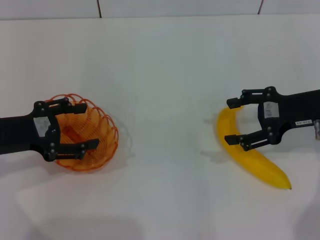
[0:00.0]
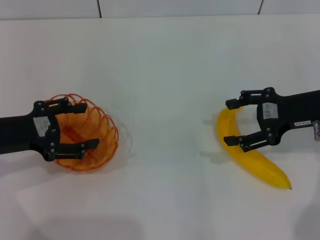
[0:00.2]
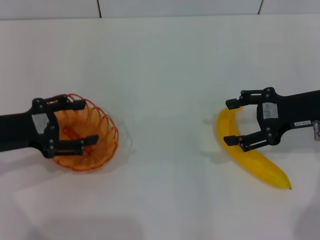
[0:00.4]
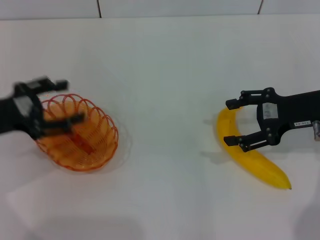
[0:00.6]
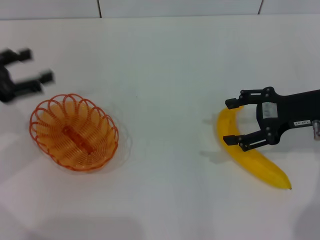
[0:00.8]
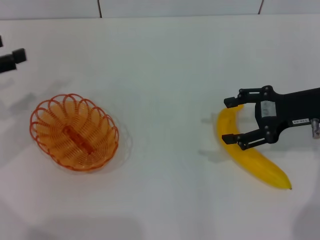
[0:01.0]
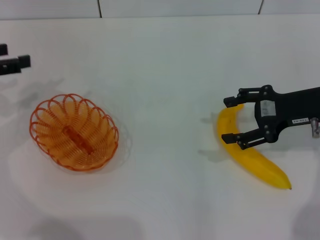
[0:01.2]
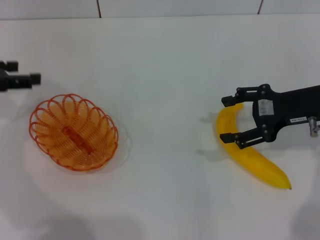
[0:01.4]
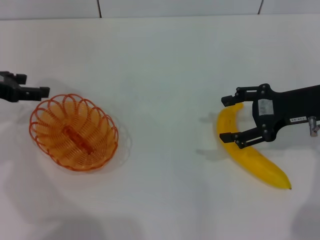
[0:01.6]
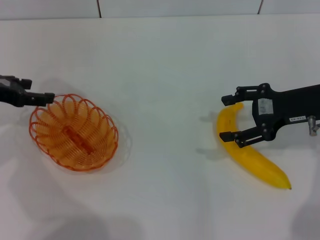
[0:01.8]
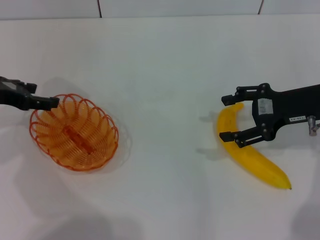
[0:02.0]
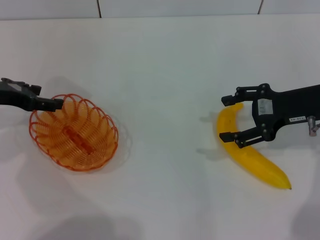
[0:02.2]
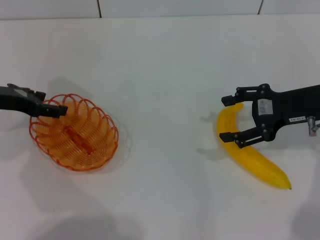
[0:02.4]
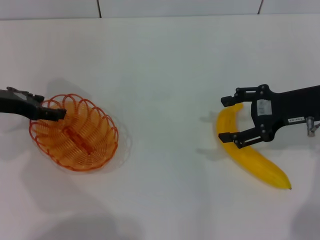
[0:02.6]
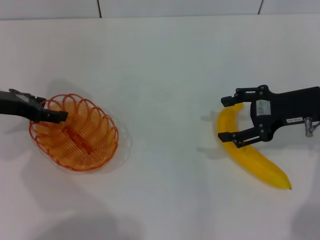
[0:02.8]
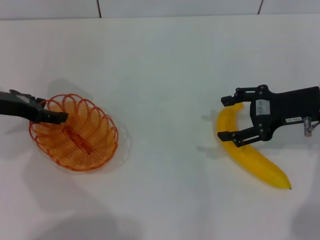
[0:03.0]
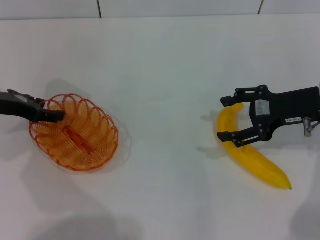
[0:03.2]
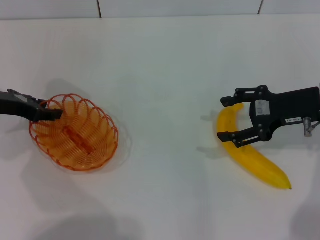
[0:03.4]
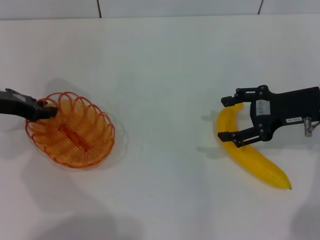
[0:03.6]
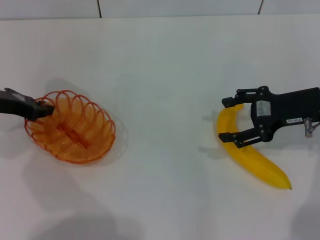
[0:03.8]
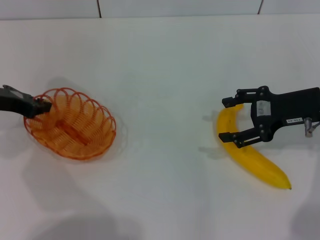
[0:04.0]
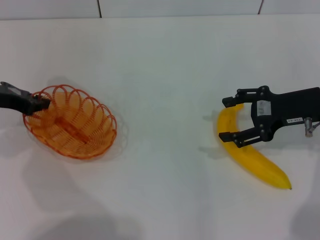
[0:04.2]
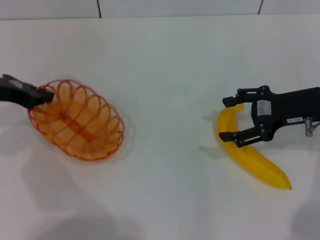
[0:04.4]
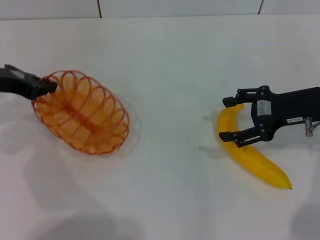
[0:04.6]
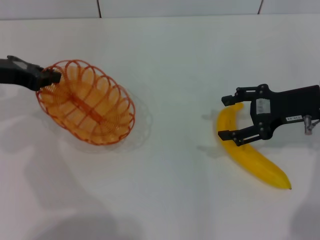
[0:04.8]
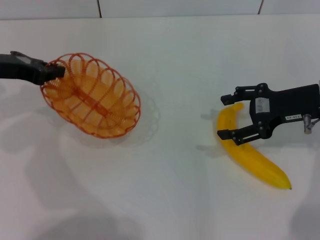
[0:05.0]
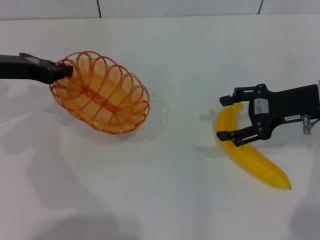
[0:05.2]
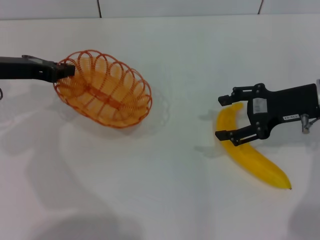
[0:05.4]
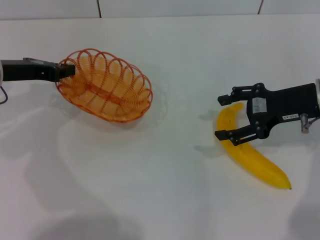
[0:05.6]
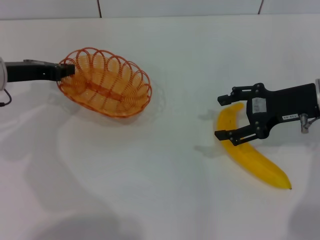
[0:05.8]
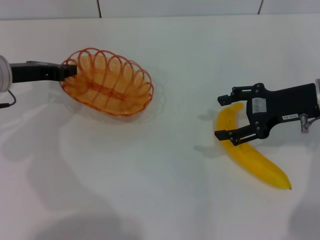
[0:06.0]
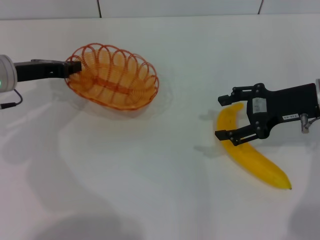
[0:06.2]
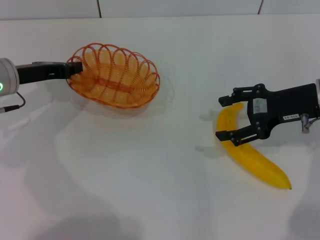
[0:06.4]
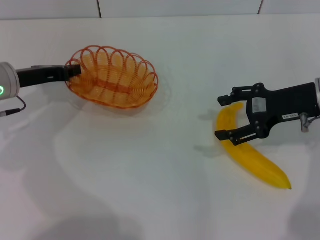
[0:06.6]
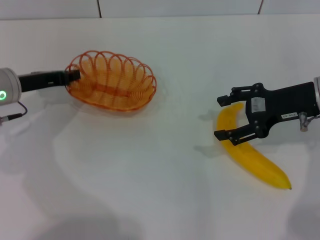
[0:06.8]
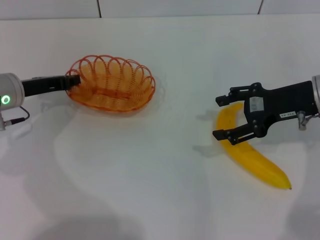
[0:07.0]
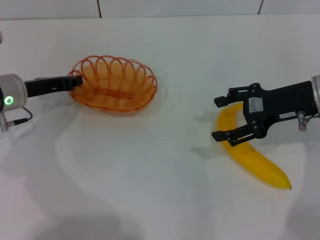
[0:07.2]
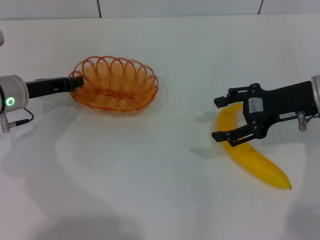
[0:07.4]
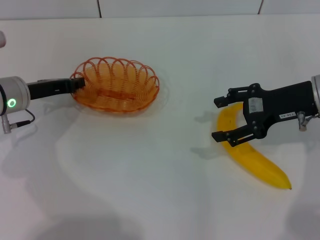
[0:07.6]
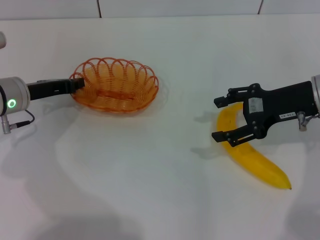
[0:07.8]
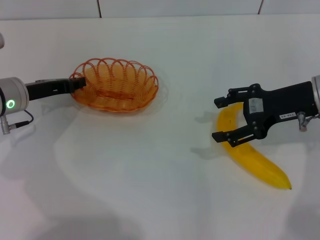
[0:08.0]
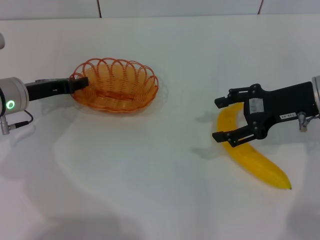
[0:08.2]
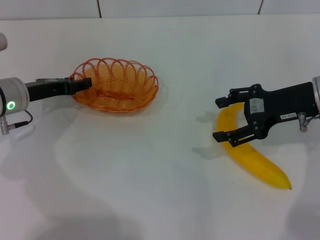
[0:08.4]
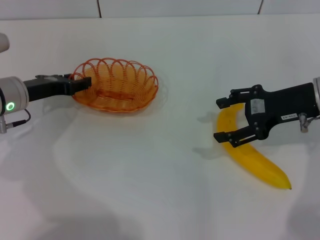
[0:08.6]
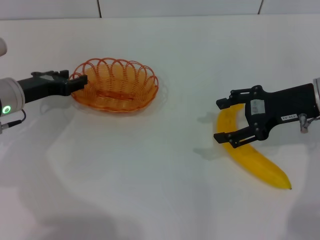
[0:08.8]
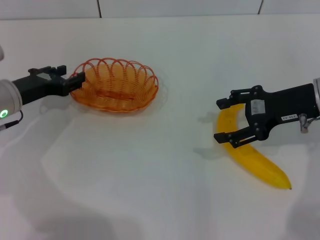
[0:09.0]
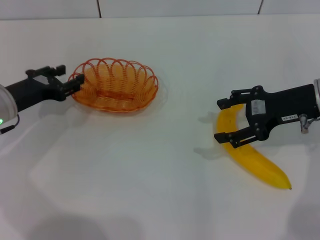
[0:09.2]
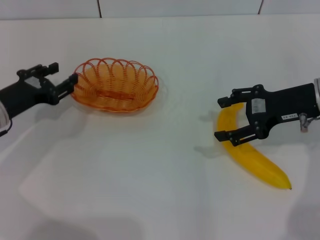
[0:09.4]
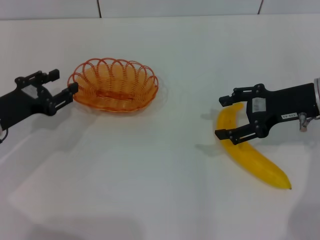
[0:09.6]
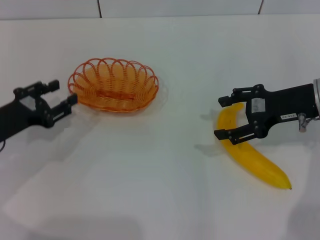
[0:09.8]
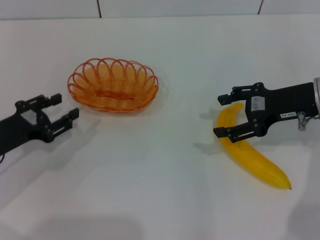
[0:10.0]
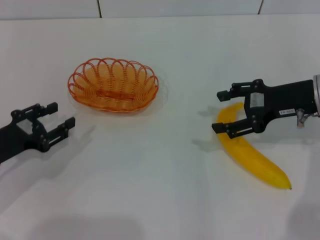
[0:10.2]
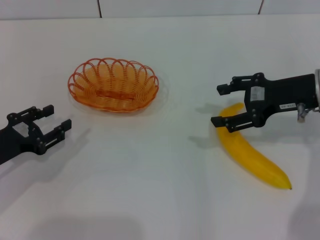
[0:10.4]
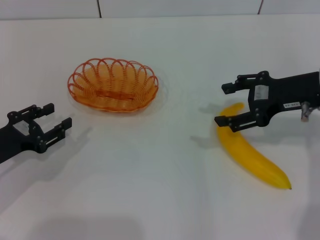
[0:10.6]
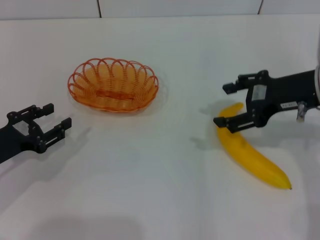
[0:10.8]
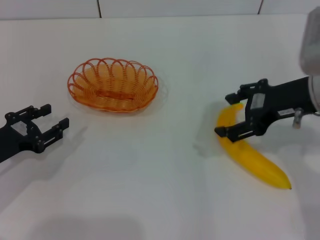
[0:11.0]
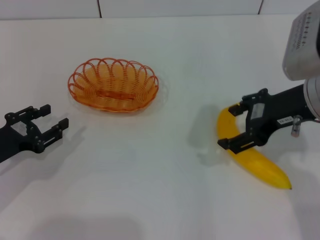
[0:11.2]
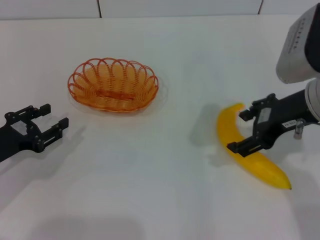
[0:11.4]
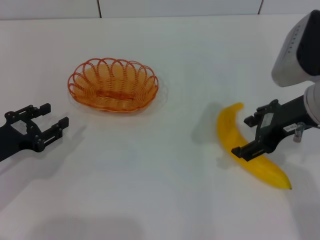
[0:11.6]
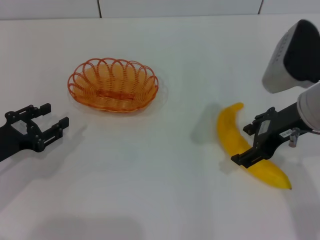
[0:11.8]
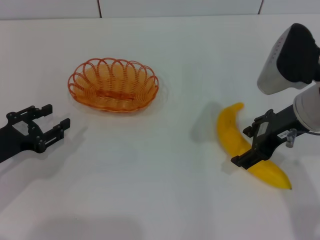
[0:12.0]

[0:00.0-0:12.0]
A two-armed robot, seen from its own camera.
Step, 0:00.0 to 0:04.8: Pick up the basket with the left gripper.
Step, 0:05.0 to 0:08.6: Place the basket in the center of view with the left gripper.
0:00.0 to 0:01.6: The left gripper is displaced forward by roughly 5 cm.
0:01.6 to 0:03.0: The grippers move only a little.
0:03.0 to 0:04.4: The left gripper closes up.
0:06.0 to 0:07.6: The grippers stay close to where they were, moving slightly.
0:07.6 to 0:09.0: The left gripper opens its fingers.
0:09.0 to 0:10.4: The left gripper heads backward, covering some 10 cm.
0:10.4 to 0:12.0: The right gripper moves to the left, about 5 cm.

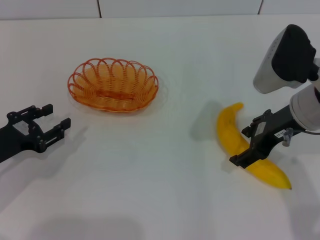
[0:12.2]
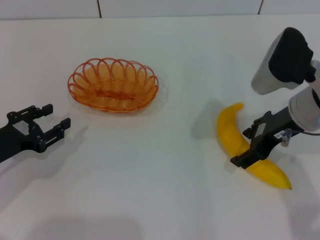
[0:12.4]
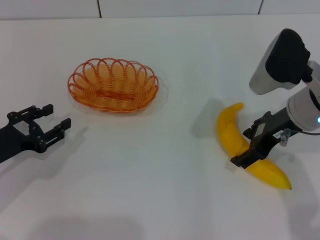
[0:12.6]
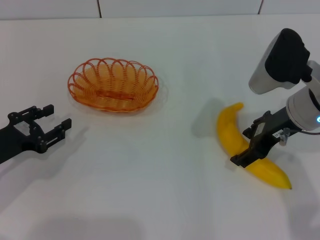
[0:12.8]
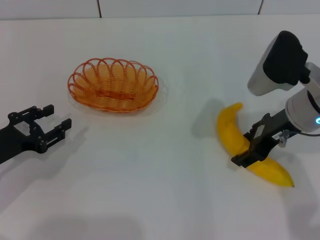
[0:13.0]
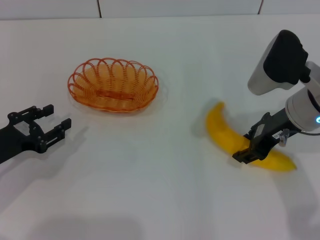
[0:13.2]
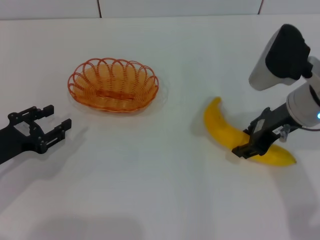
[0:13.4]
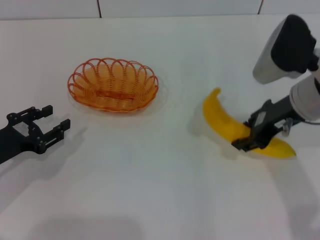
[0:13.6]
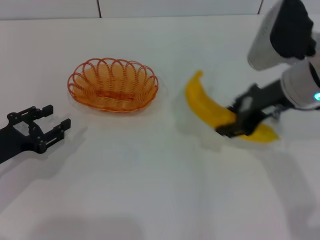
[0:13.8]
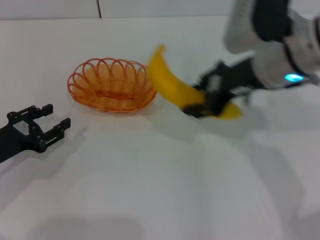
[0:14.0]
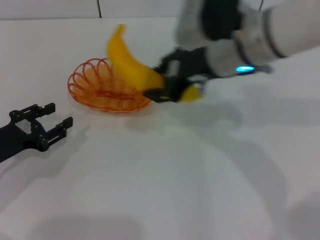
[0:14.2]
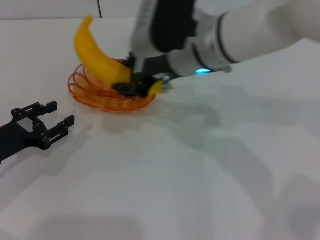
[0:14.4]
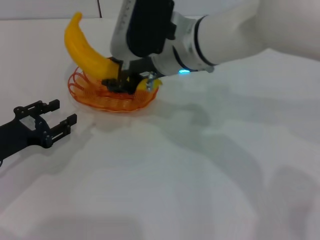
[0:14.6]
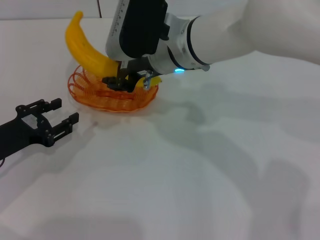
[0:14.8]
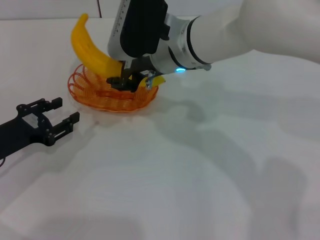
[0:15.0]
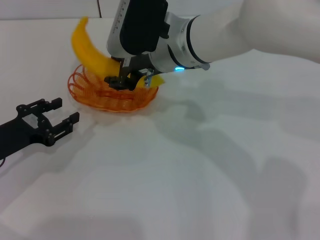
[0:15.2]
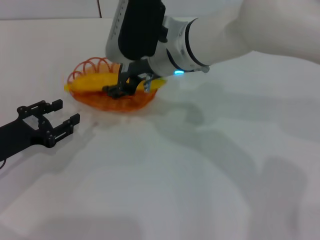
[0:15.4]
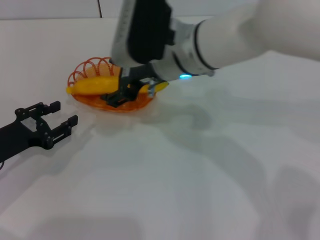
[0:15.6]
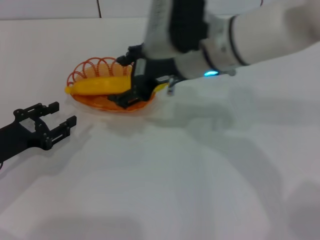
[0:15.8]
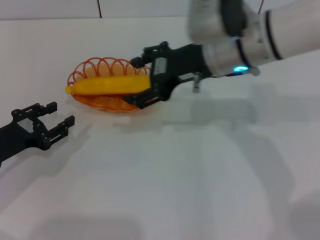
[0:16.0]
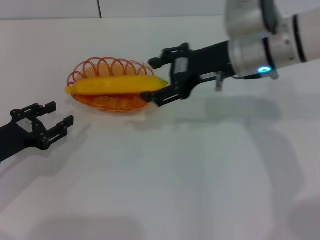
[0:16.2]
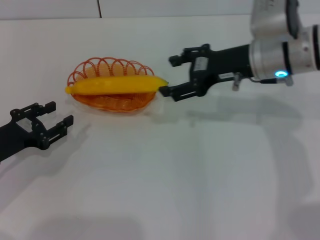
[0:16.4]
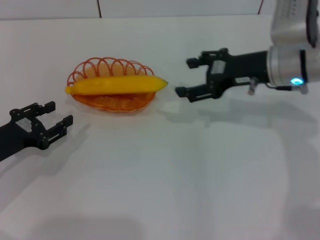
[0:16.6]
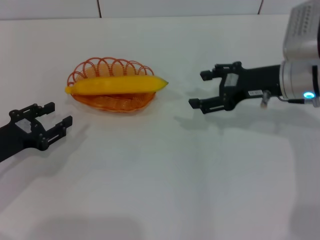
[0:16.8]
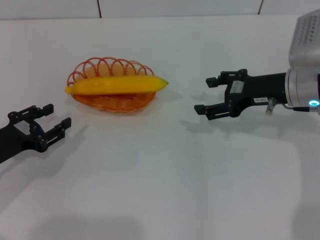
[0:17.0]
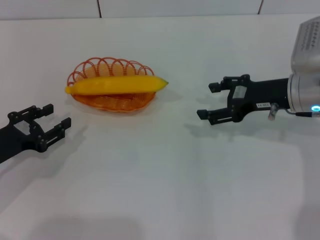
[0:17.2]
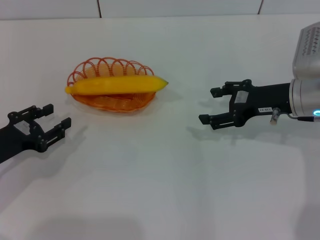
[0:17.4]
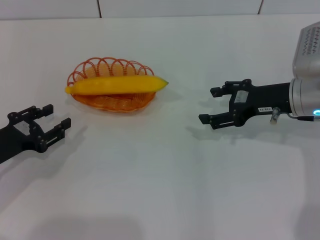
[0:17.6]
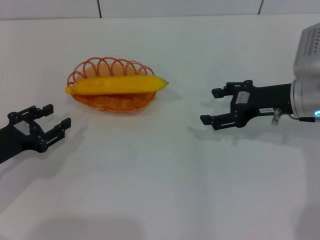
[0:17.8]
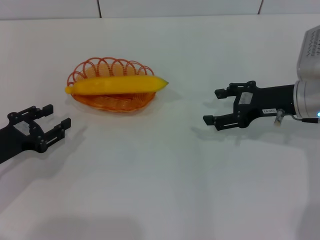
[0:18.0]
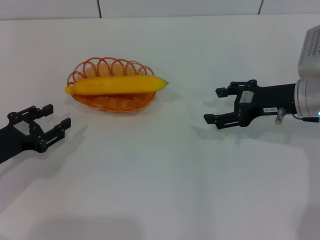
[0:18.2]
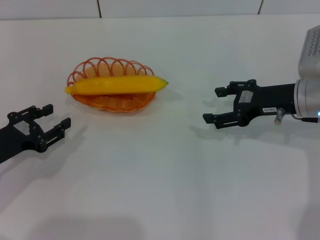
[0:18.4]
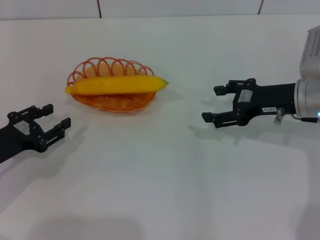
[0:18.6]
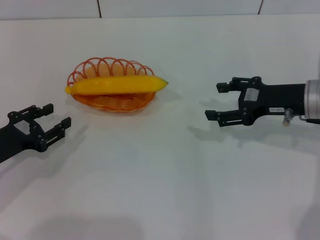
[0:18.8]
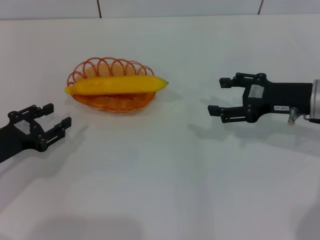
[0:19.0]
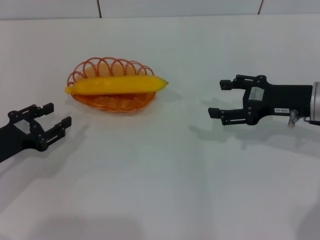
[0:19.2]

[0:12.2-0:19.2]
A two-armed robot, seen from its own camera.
Step, 0:14.2 to 0:15.8: Place the banana into the basket with the right gripper.
0:12.2 to 0:13.6: The right gripper closes.
0:13.6 to 0:15.0: The right gripper goes approximately 20 cm to the left and forward.
0:15.0 to 0:16.4: The right gripper travels to the right by approximately 15 cm, and opens.
0:16.4 to 0:17.8: The right gripper travels to the right by approximately 5 cm.
0:17.8 to 0:19.2: There are only small adjustments of the grippers.

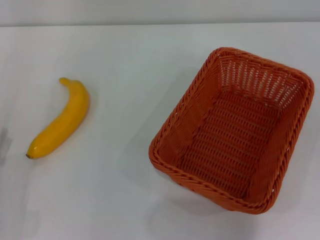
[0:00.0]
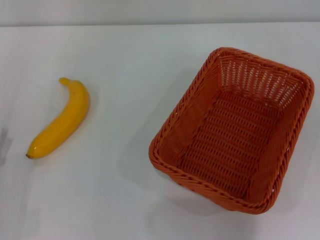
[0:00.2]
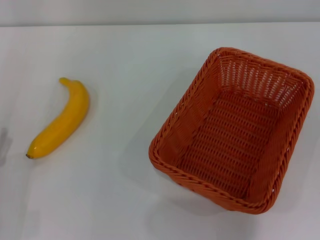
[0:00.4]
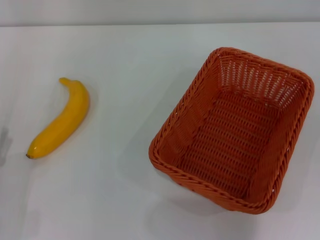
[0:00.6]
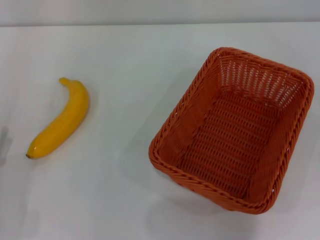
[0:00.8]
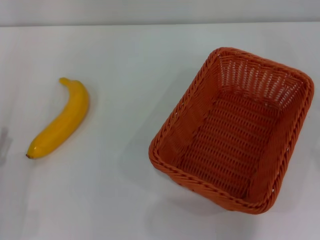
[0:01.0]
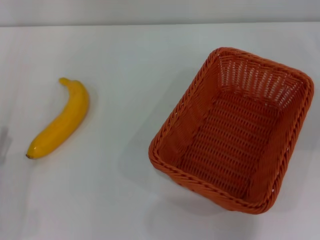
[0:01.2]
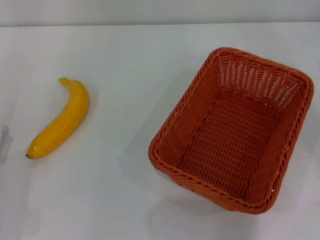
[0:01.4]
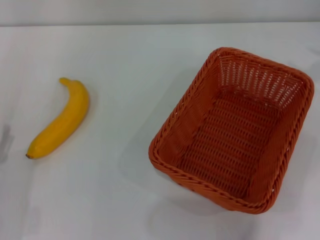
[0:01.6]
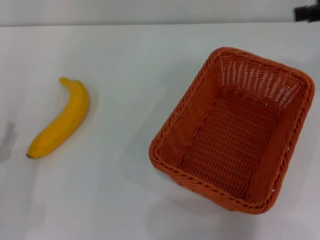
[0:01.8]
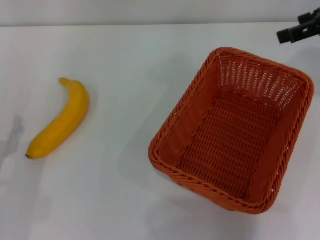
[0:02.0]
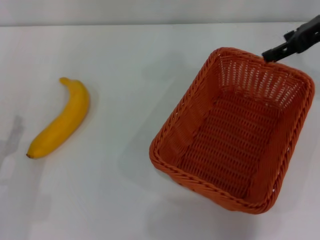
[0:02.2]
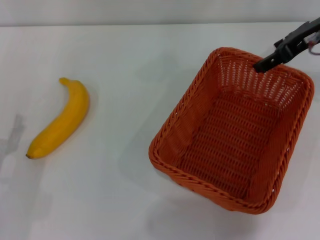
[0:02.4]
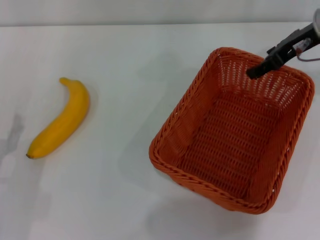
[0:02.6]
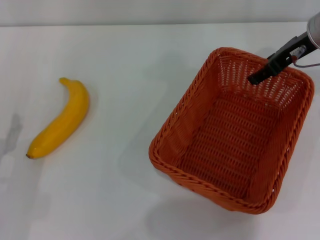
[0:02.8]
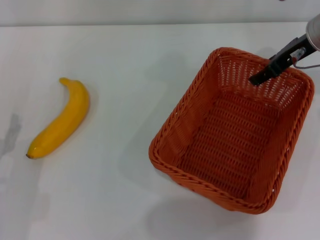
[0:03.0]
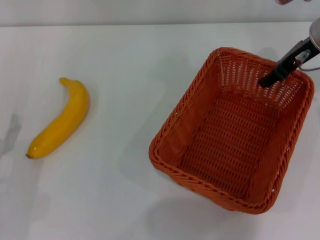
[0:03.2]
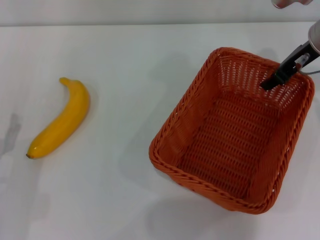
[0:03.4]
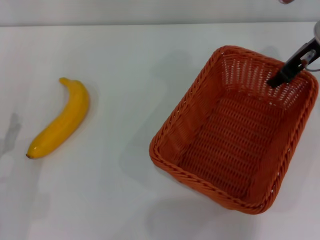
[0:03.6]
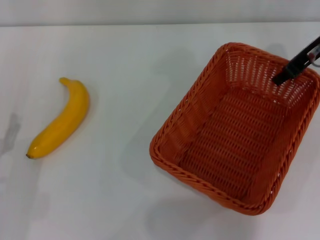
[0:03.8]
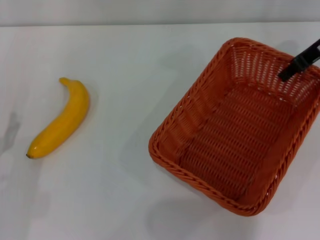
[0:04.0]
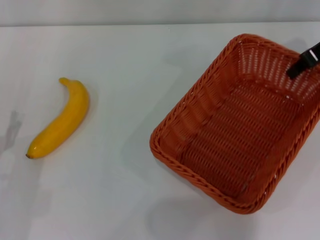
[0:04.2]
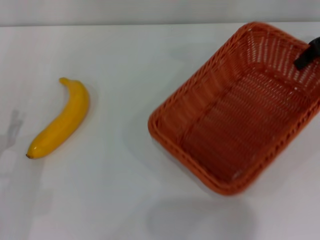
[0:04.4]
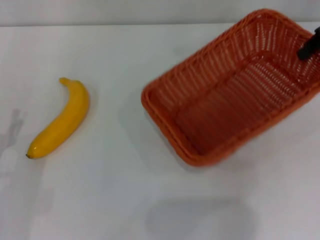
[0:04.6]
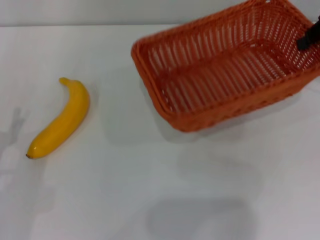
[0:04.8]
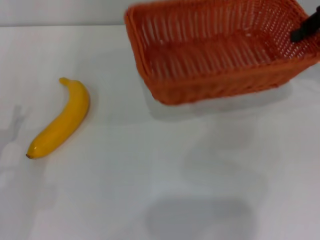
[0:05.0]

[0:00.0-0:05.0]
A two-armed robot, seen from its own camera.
Step, 0:00.0 to 0:03.8: Pick up the light basket with the right gripper.
0:01.6 to 0:03.4: The right gripper travels to the left, forward and downward by roughly 20 cm.
0:03.4 to 0:05.0: The right gripper shifts some 10 cm to the right and upward, and closes its fingers.
